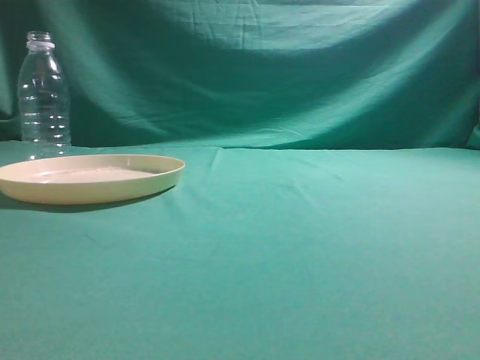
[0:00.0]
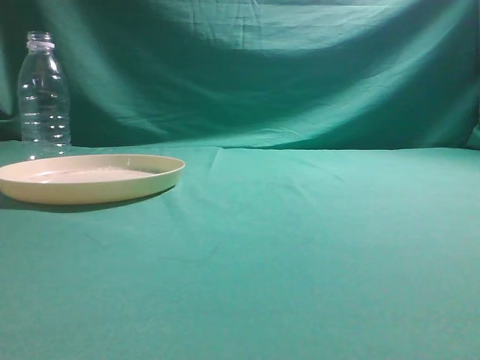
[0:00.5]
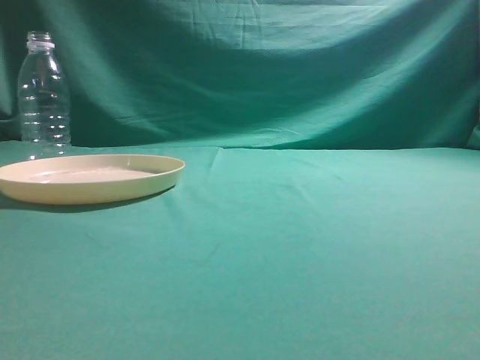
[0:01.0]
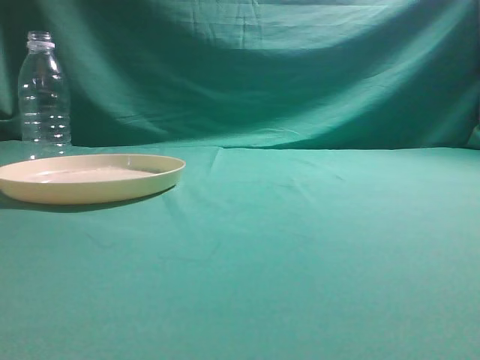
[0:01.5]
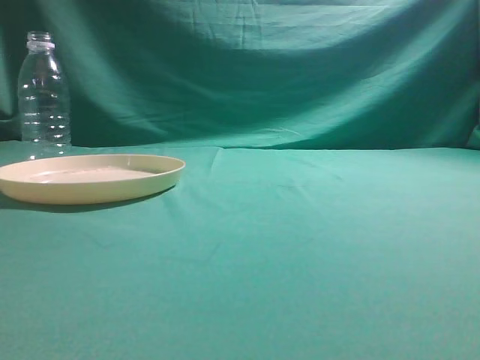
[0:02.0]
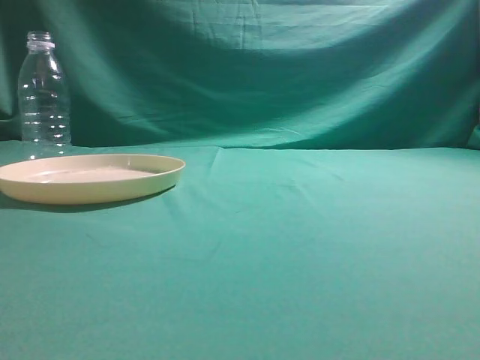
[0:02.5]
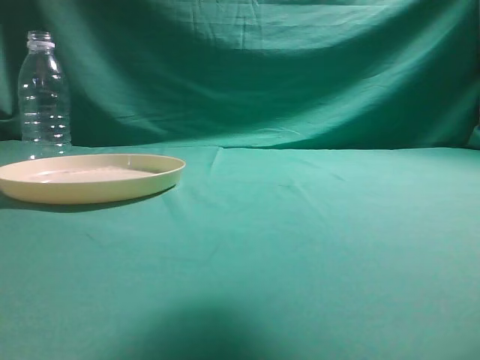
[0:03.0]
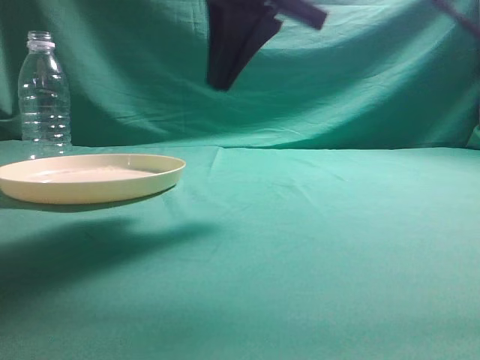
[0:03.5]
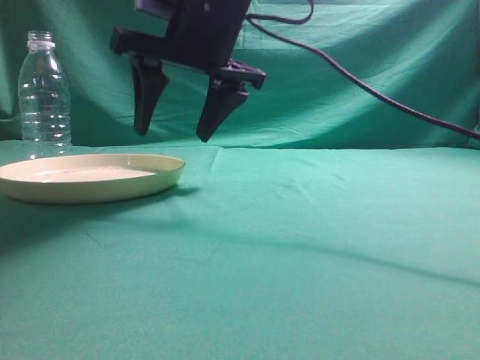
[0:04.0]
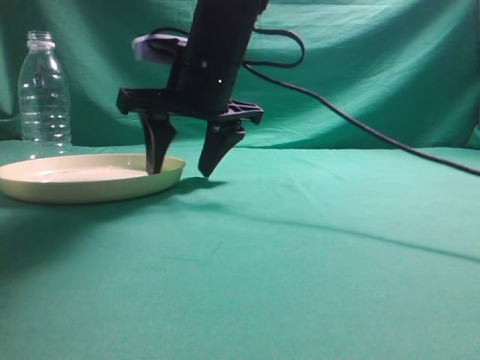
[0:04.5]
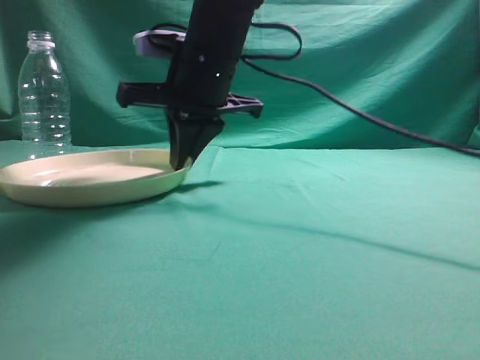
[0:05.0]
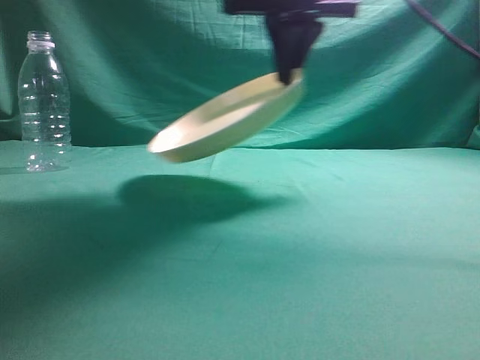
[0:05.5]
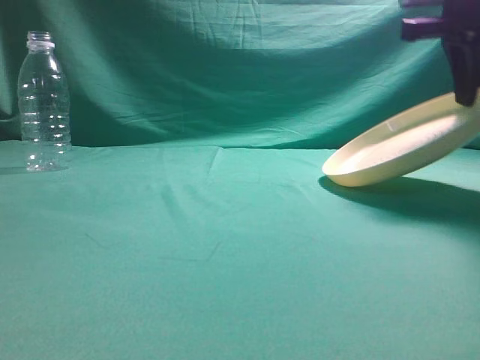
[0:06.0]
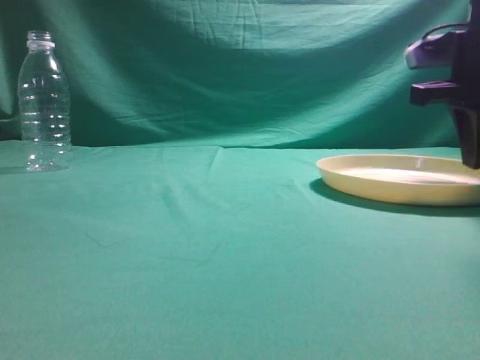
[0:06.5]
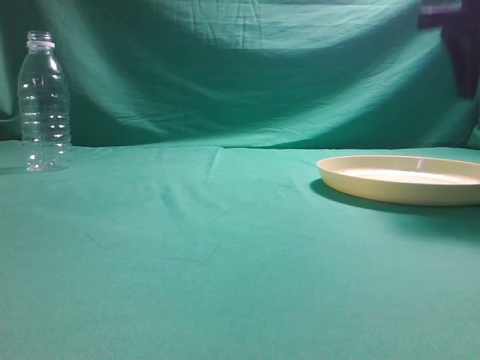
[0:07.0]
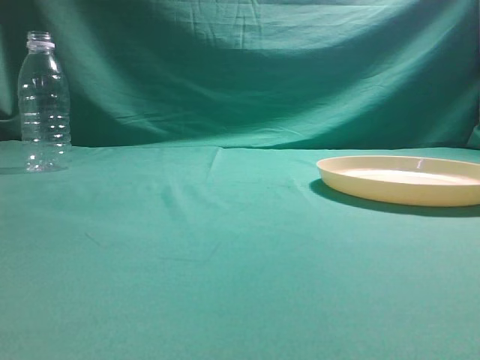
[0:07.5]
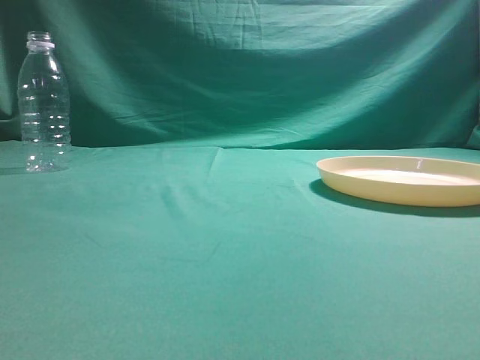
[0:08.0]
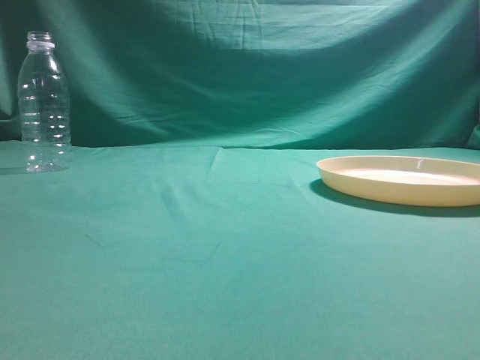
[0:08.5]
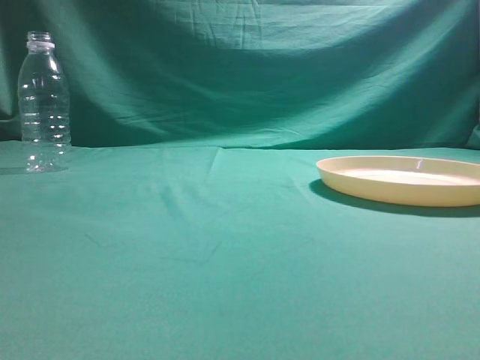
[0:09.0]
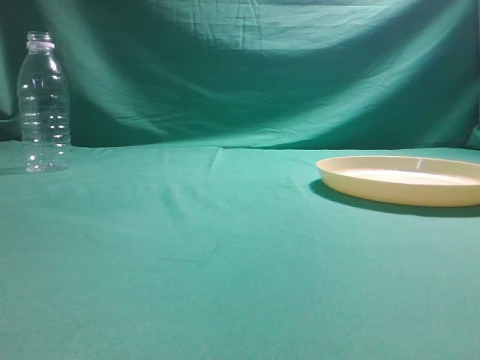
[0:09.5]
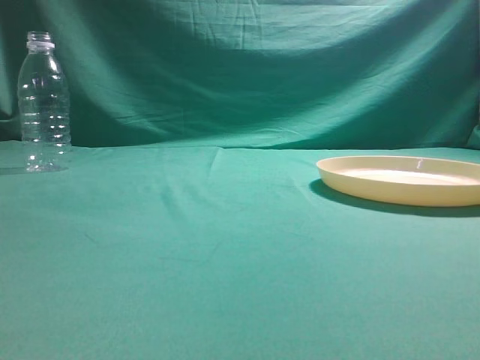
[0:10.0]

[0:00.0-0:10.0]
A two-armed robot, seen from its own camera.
Step, 0:00.0 to 0:05.0: Pick the container that can hold fruits.
Step, 0:05.5 to 0:07.0: Move the picked object to the right side of the table.
0:02.0 to 0:04.0: The right gripper travels forward and to the left by roughly 40 cm, and opens its fingers.
0:04.0 to 0:06.0: The right gripper shifts some 25 cm to the right, and closes its fingers.
0:06.0 to 0:08.0: The right gripper shifts roughly 35 cm backward and upward, and opens and closes again.
